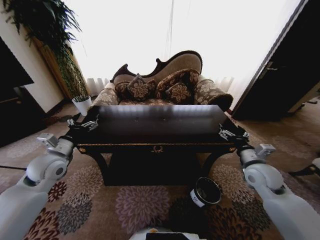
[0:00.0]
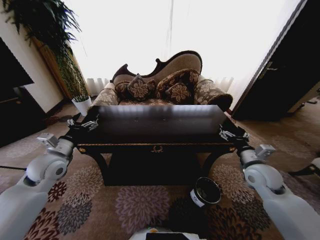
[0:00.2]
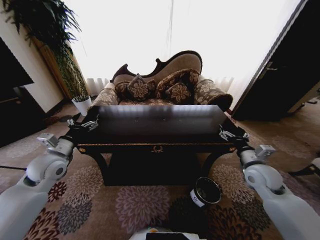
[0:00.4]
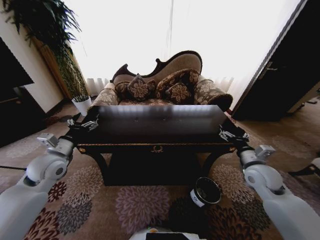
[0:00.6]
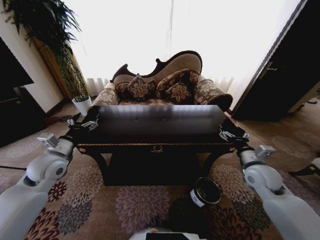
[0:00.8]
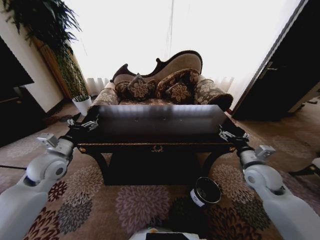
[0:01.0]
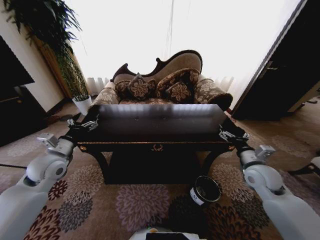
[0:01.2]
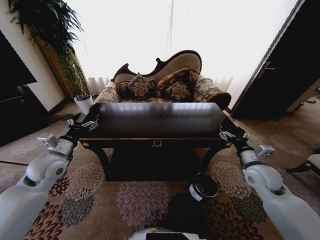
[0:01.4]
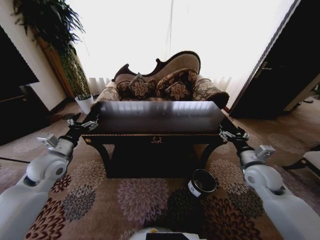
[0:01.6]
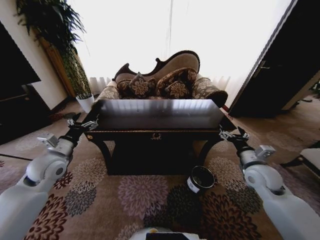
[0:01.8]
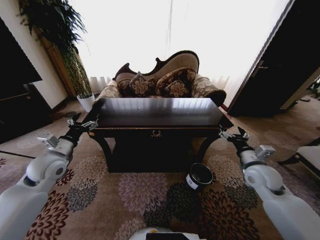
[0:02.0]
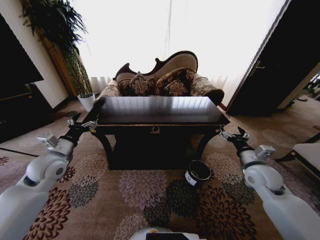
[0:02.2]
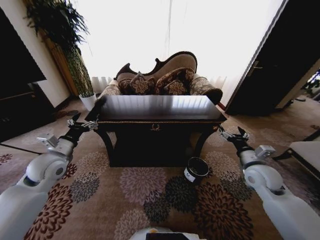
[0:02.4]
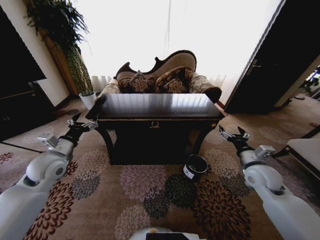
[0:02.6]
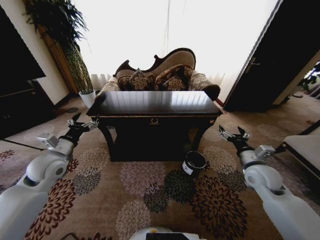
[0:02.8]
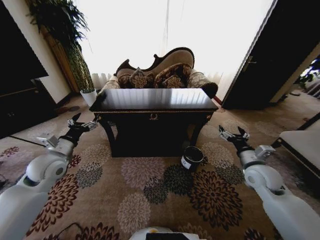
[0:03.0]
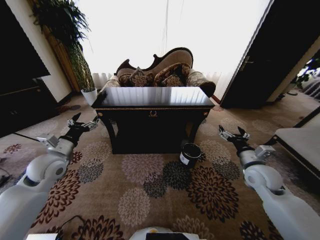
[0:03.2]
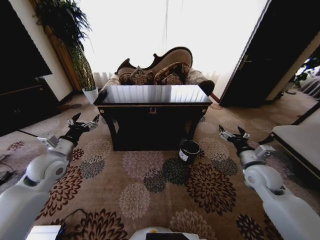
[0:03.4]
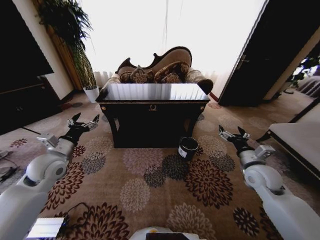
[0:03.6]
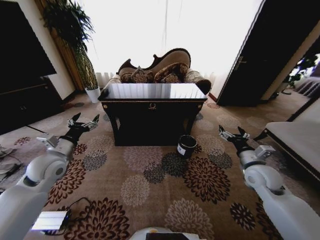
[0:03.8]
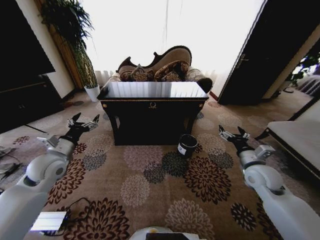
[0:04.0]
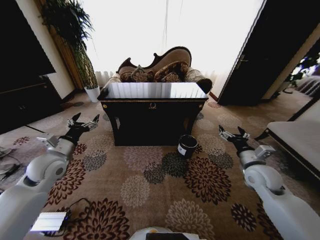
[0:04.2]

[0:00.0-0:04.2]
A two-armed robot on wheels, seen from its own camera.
Task of the whole recording: Move to the front of the table and place the trash on the table into the trash bin.
0:00.0 to 0:01.4: Both grippers stay put.

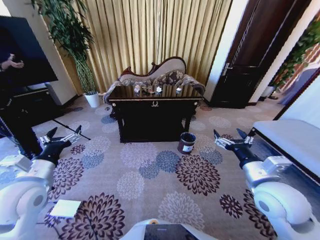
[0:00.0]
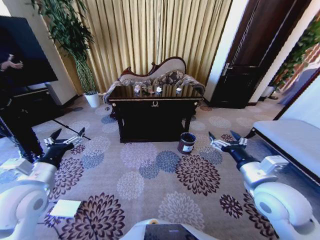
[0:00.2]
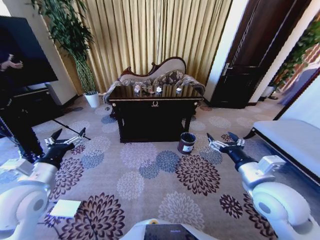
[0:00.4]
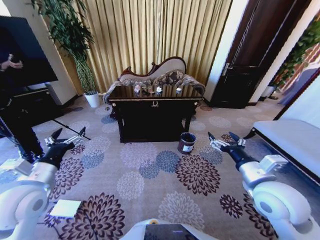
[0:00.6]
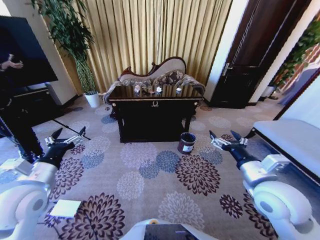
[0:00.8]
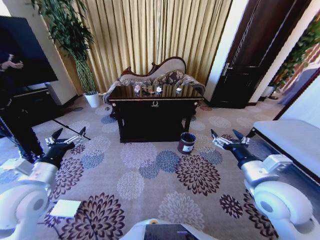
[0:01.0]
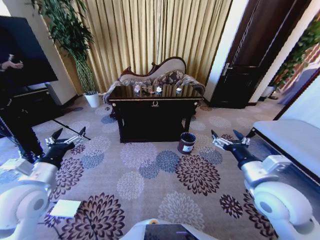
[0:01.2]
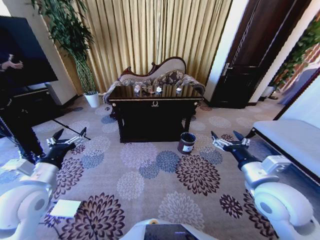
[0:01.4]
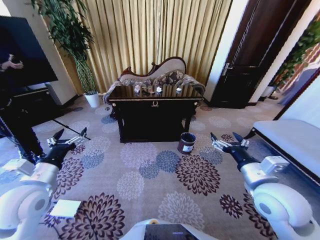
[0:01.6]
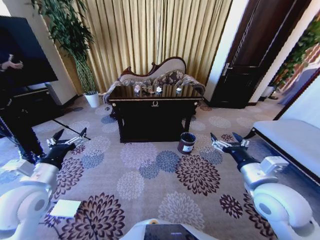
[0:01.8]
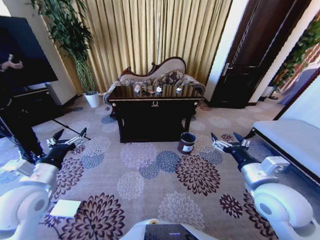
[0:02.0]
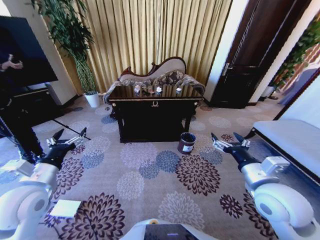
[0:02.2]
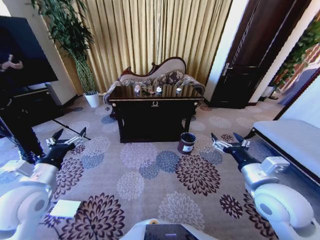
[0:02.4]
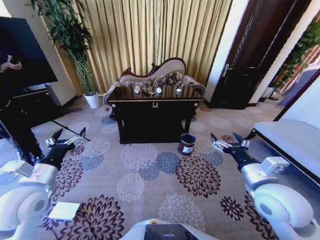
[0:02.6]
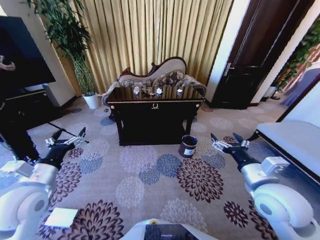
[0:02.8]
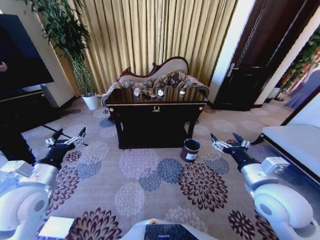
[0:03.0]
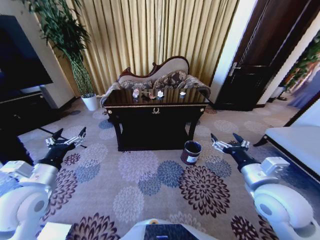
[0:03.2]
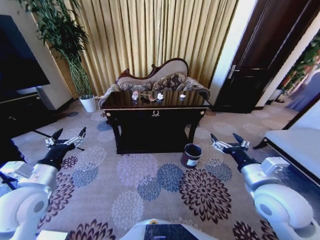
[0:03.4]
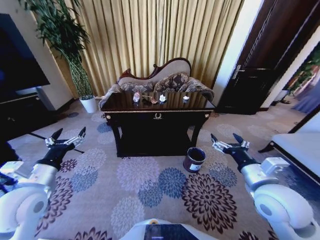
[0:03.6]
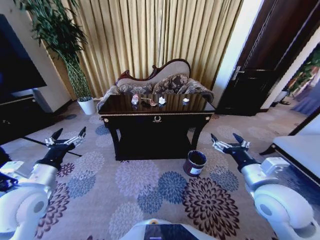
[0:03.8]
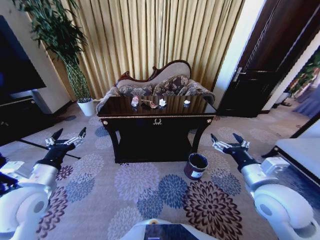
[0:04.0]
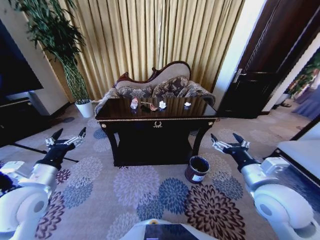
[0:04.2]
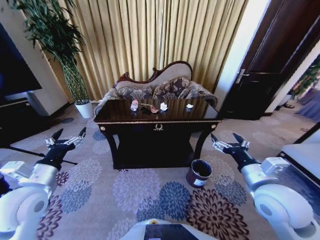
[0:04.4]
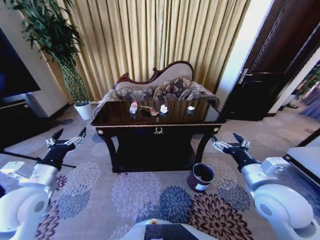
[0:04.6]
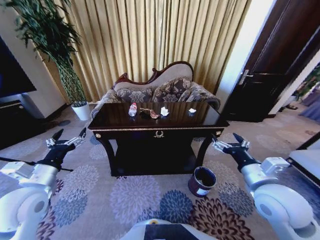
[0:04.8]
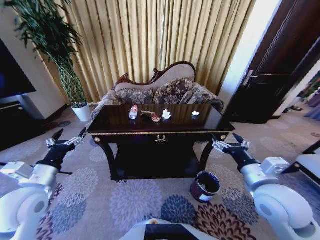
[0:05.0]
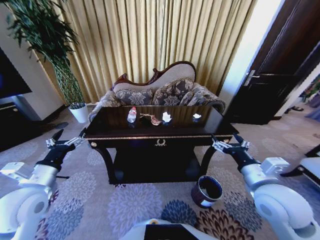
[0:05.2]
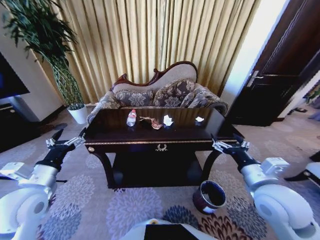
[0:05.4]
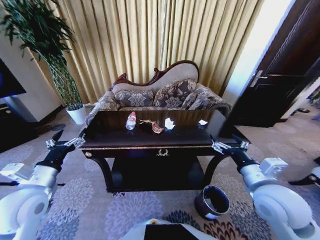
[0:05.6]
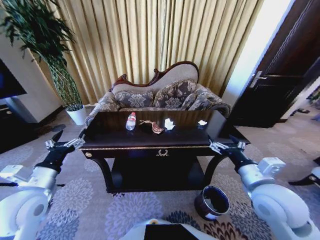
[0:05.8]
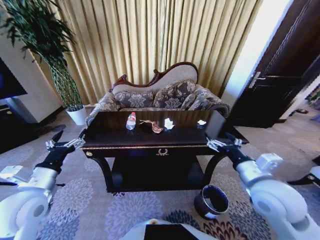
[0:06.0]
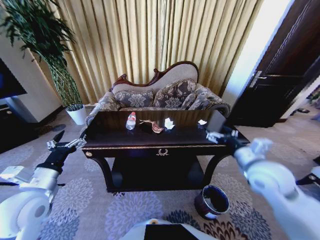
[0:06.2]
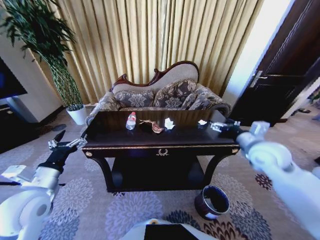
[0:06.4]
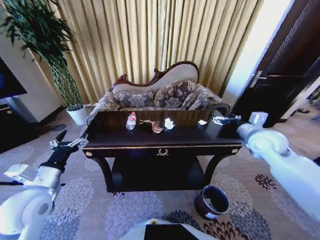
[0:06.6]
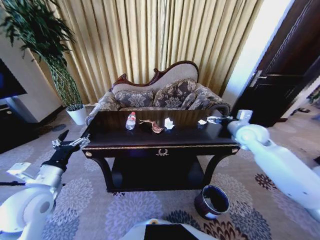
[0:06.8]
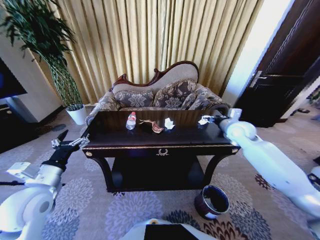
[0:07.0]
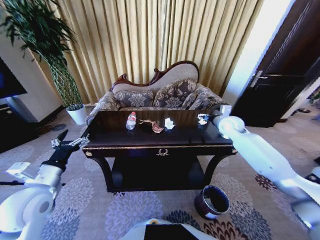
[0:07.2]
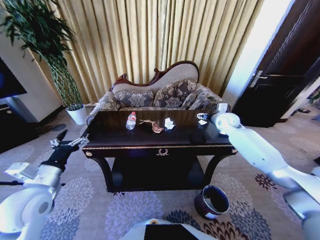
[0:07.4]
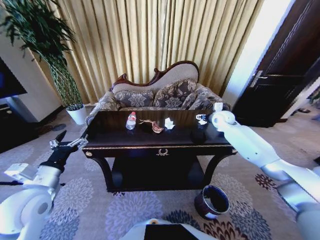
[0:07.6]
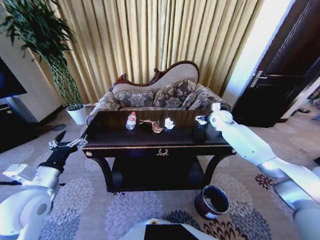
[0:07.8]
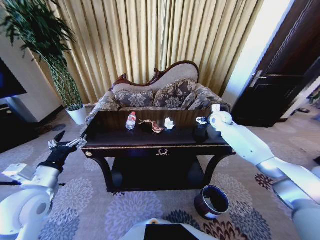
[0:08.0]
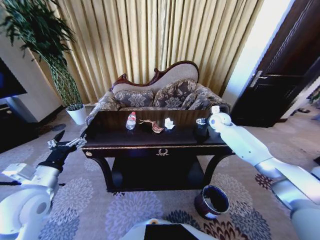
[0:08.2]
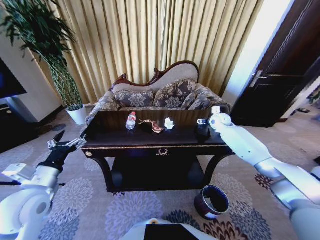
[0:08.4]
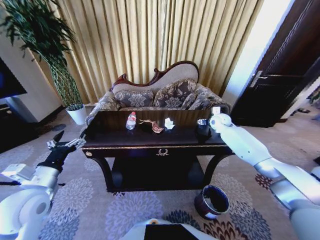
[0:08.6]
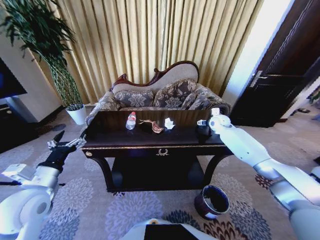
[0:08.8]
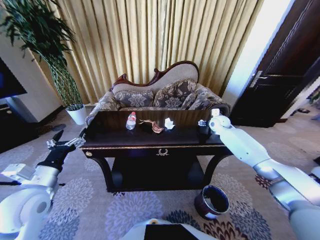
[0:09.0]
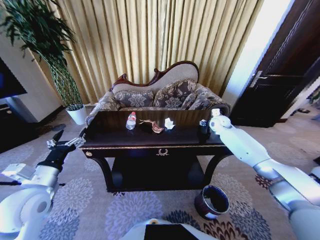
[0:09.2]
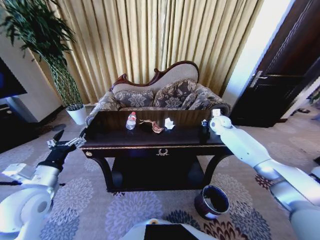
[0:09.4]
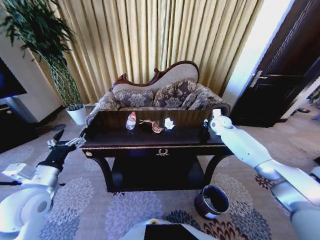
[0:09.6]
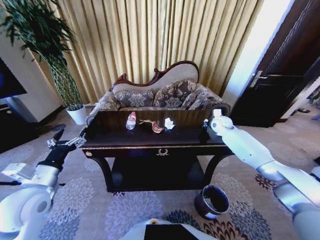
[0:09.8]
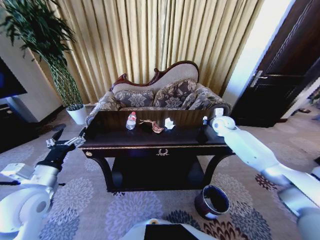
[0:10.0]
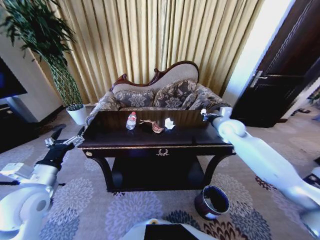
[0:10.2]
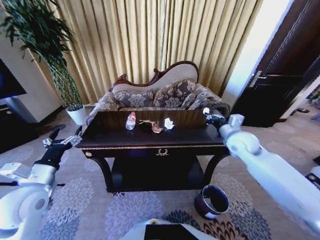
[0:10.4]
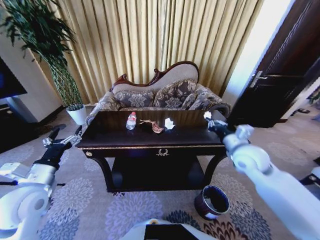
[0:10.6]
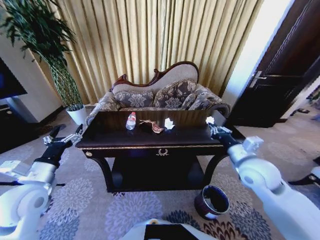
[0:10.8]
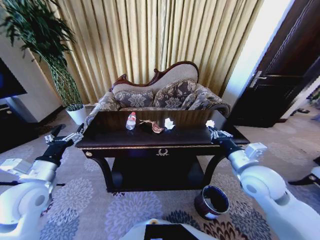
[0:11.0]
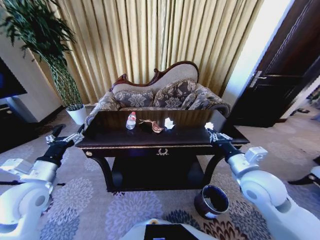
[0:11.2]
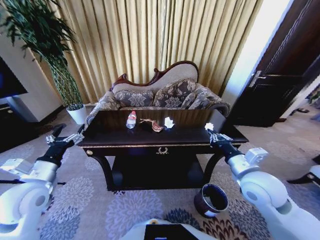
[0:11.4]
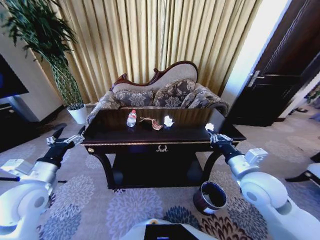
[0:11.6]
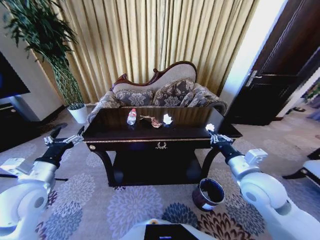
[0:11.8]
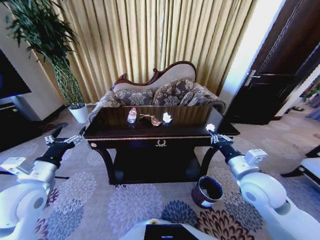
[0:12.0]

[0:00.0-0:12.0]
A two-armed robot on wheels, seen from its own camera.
Task of the whole recording: Move to the front of the table and place the trash on the table into the trash bin.
0:06.0 to 0:07.6: The right gripper is displaced forward by about 35 cm.
0:07.6 to 0:09.0: The grippers make only small movements.
0:09.0 to 0:10.4: The right gripper shifts some 15 cm backward, and closes its fingers.
0:10.4 to 0:12.0: The right gripper shifts some 15 cm backward.

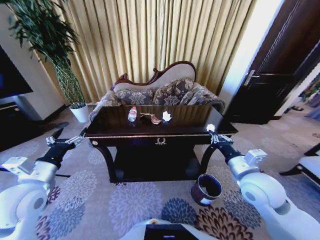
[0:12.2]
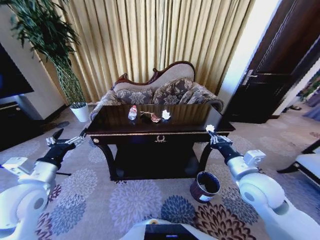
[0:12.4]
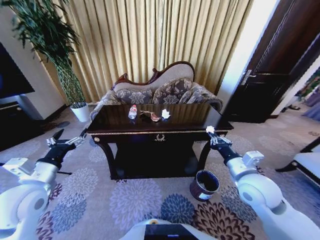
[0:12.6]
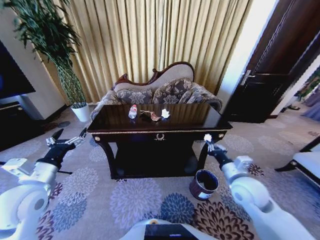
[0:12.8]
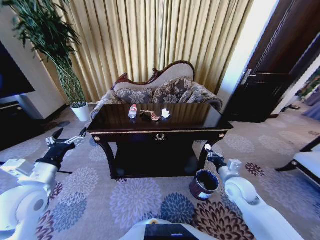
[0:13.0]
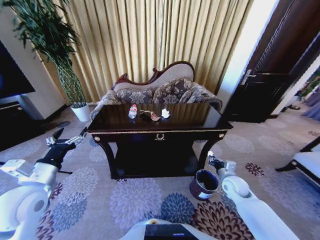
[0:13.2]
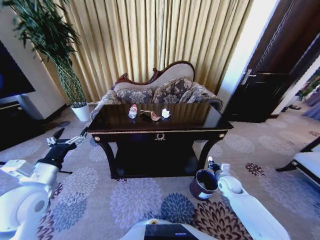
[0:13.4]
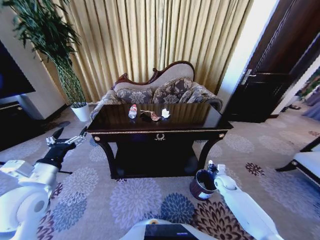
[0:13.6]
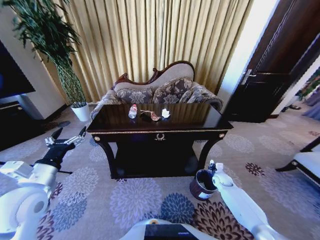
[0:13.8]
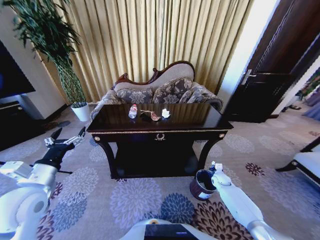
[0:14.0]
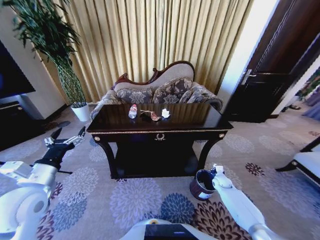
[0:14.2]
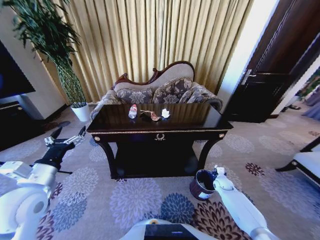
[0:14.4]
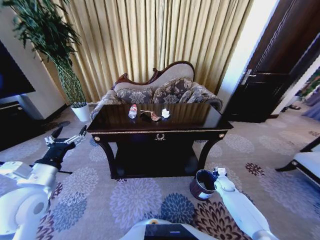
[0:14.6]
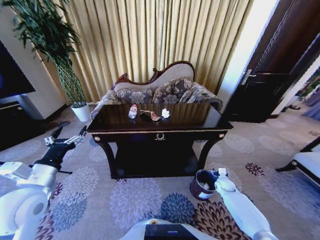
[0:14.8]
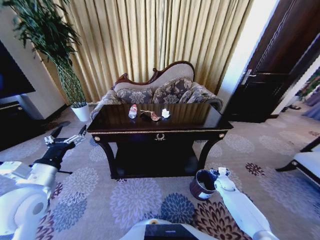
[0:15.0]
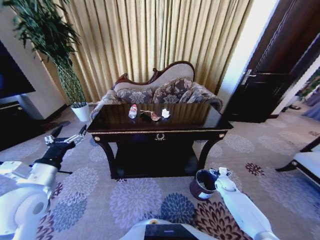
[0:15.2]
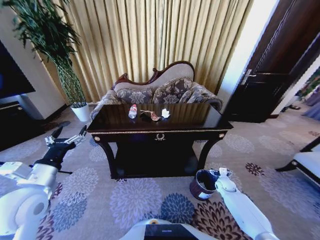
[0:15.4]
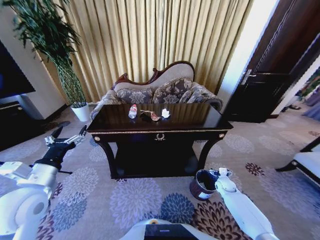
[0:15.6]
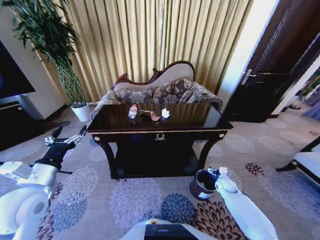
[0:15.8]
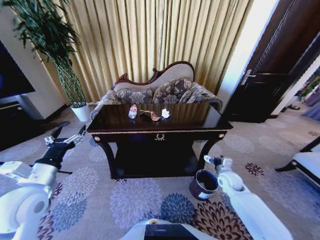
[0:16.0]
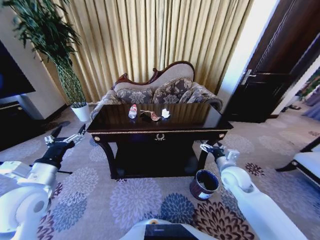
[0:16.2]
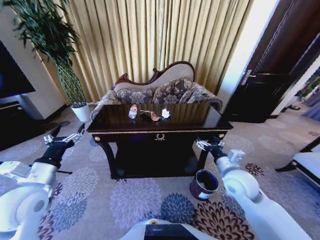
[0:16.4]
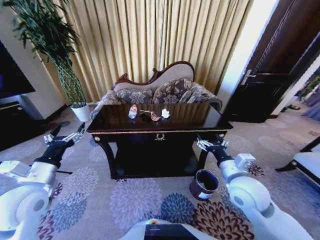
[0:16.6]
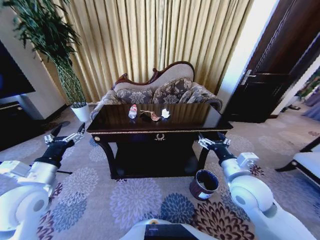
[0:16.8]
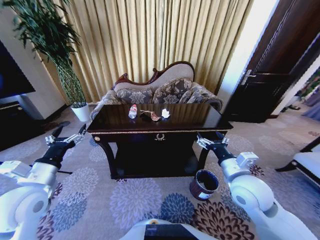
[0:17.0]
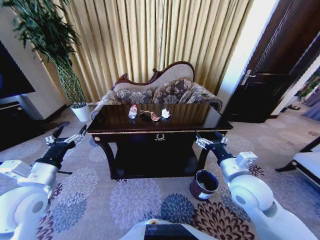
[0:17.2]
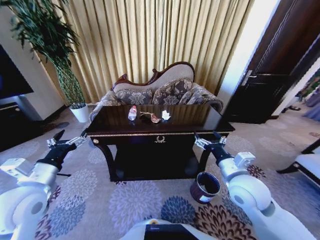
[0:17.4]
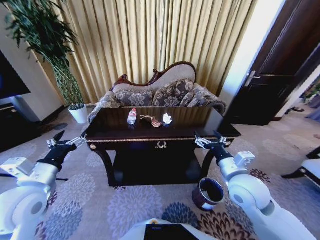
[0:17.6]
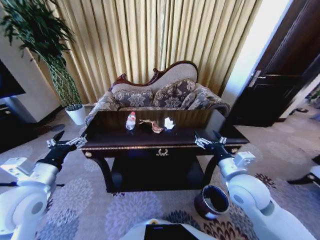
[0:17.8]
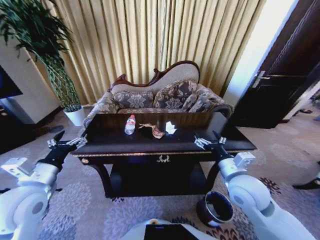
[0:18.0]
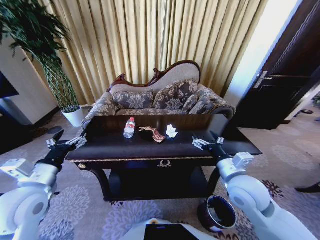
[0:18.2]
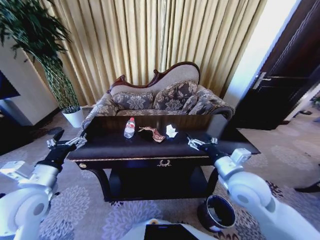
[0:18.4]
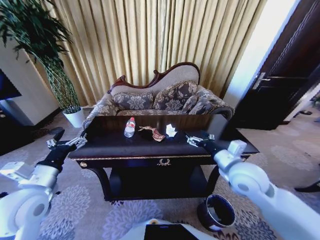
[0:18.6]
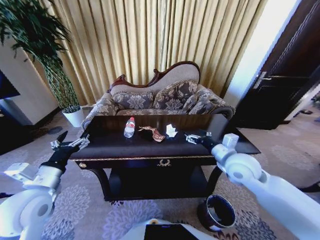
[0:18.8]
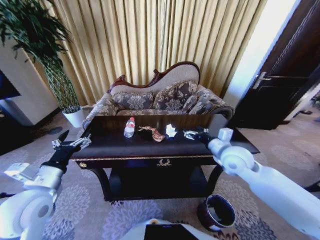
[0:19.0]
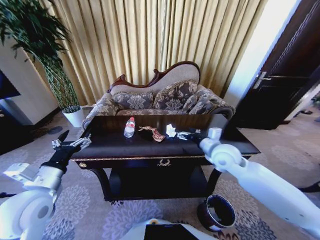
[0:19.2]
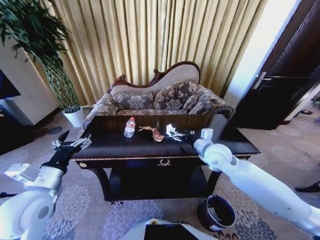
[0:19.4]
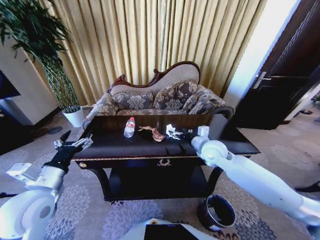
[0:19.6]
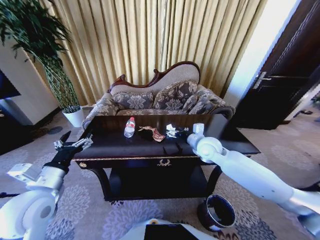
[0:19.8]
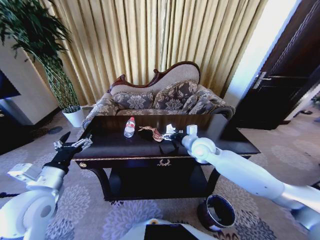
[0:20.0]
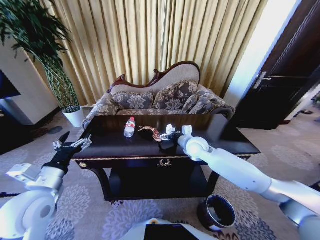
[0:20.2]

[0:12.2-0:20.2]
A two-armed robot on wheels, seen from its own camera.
Task of the whole recording: Move to the front of the table and place the trash on the table into the trash bin.
0:12.2 to 0:13.8: The right gripper travels downward and forward by some 35 cm.
0:13.8 to 0:15.4: The right gripper opens its fingers.
0:15.4 to 0:17.0: The right gripper is displaced upward and to the left by roughly 35 cm.
0:18.6 to 0:20.2: The right gripper moves forward and to the left, approximately 20 cm.
